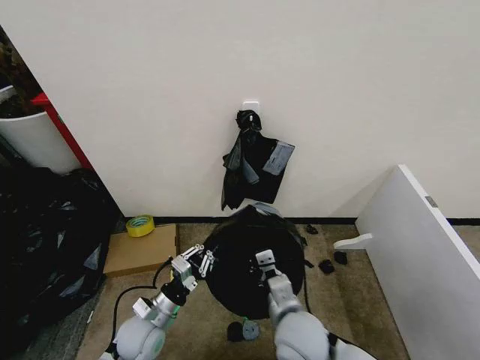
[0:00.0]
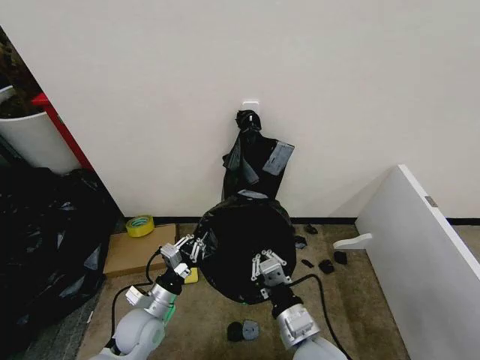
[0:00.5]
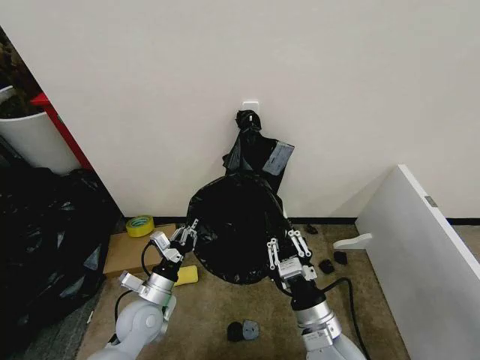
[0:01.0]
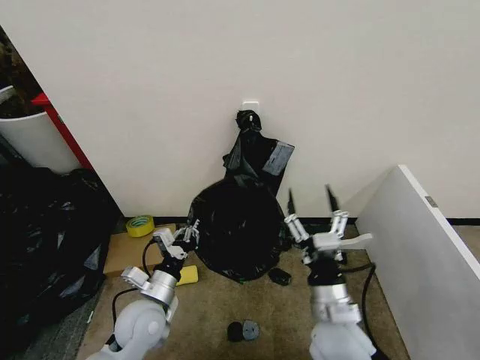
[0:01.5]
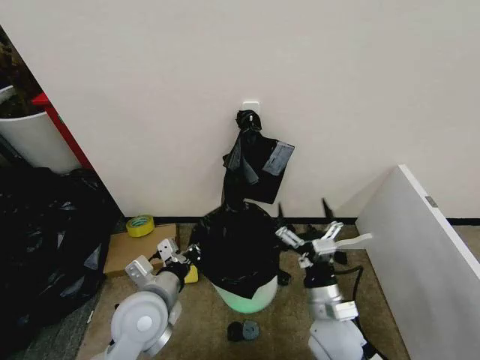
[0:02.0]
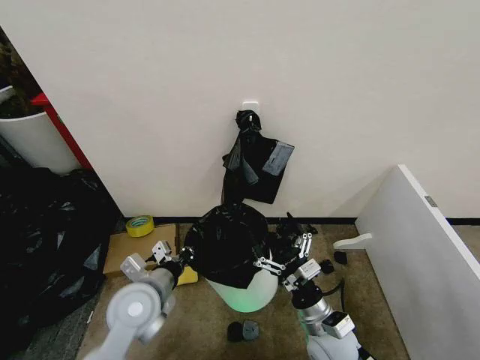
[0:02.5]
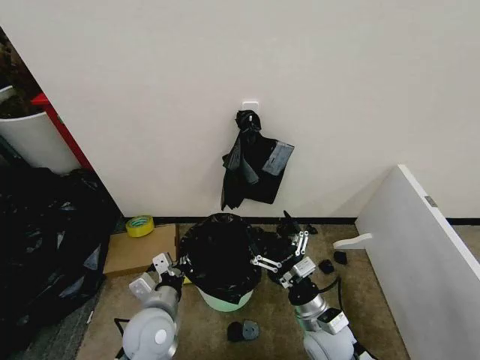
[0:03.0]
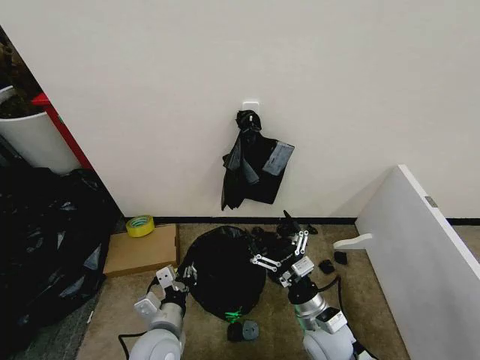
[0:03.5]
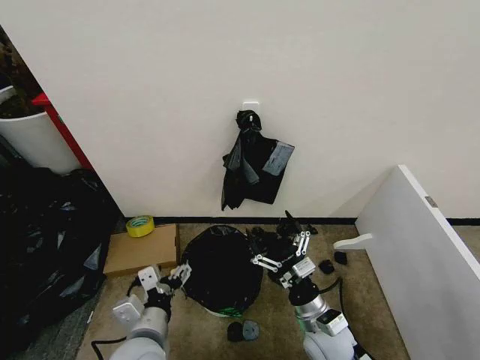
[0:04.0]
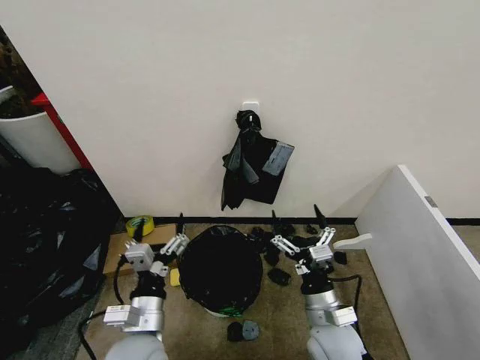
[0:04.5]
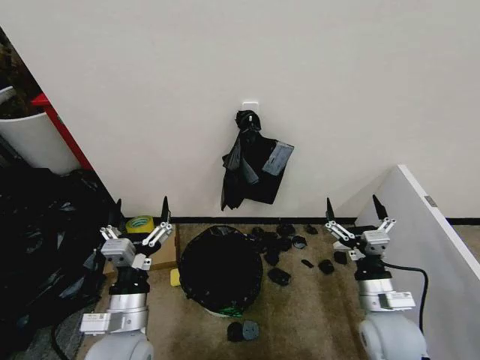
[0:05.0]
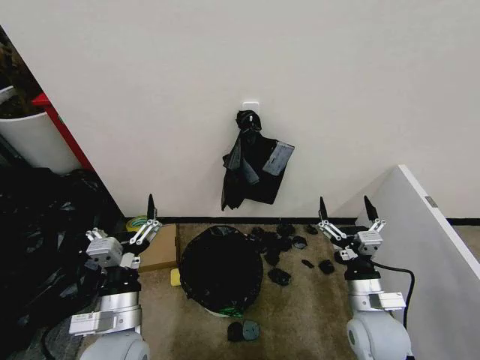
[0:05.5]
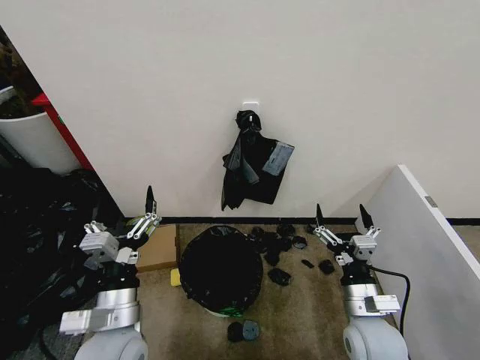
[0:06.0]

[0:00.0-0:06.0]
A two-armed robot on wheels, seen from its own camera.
Task of the whole recording: Place the garbage bag over the trash bin.
0:00.0 to 0:02.0: The left gripper heads upward, covering roughly 15 cm. The right gripper moves to the right, approximately 10 cm, and opens.
0:02.0 to 0:04.0: The left gripper is displaced backward by approximately 5 cm, and opens its fingers.
0:04.0 to 0:06.0: The right gripper goes some 10 cm to the right and upward, while the left gripper is displaced upward by some 5 cm.

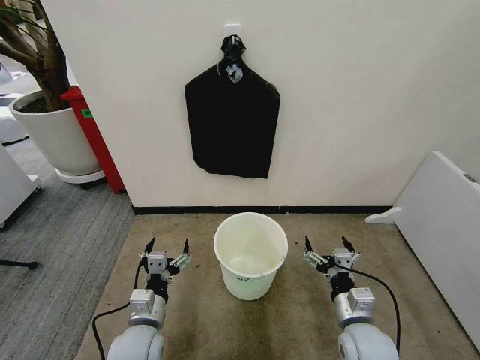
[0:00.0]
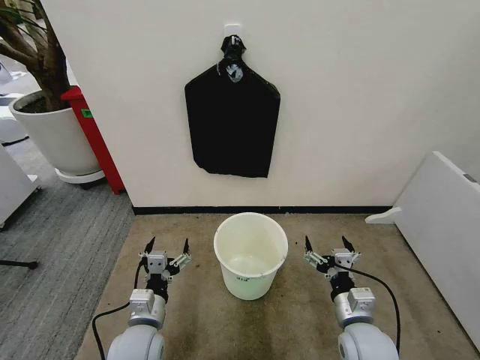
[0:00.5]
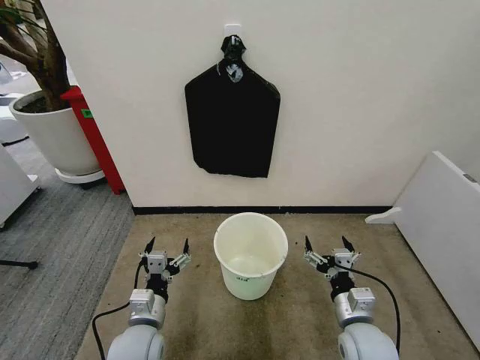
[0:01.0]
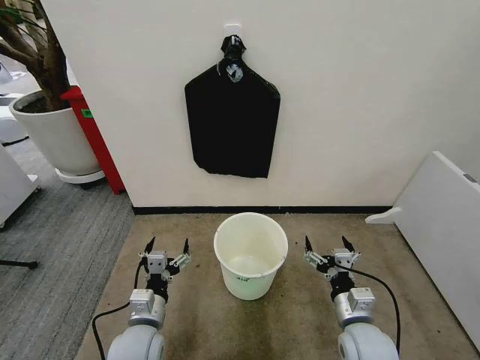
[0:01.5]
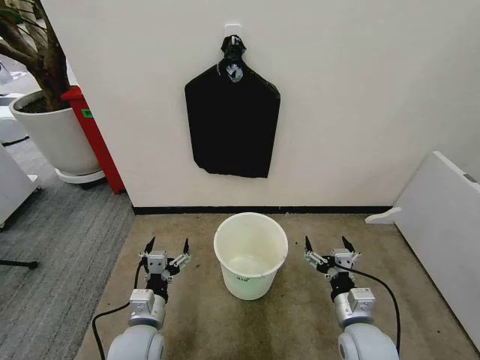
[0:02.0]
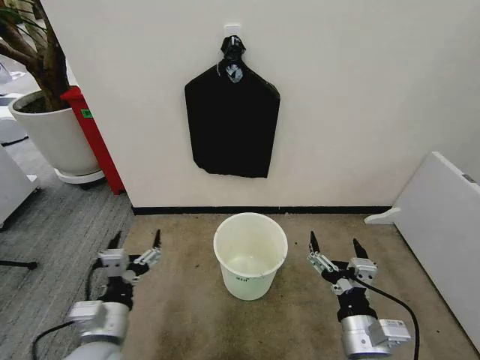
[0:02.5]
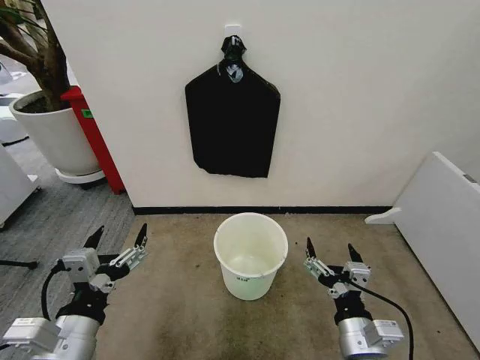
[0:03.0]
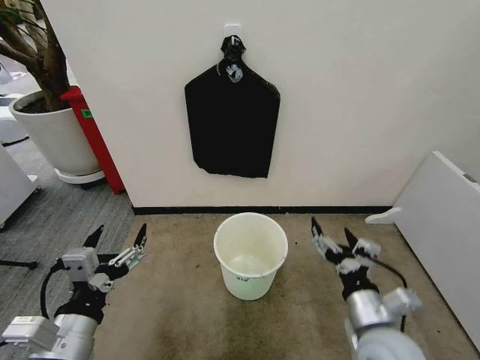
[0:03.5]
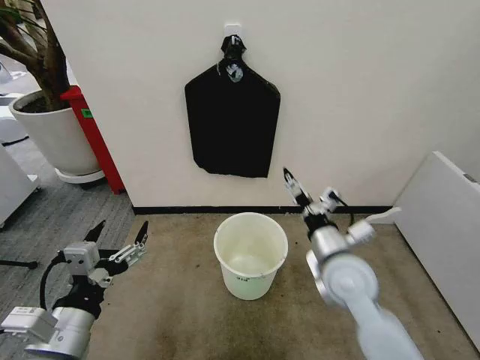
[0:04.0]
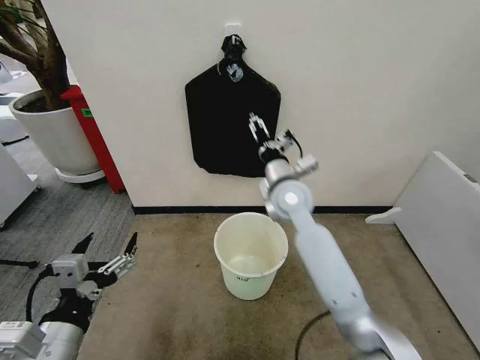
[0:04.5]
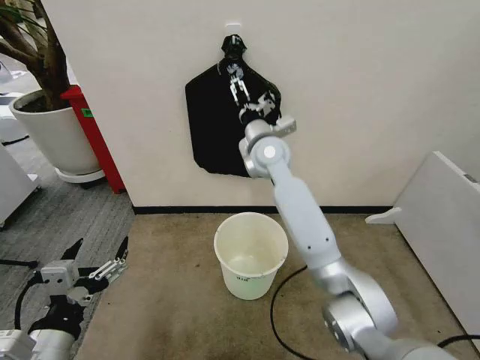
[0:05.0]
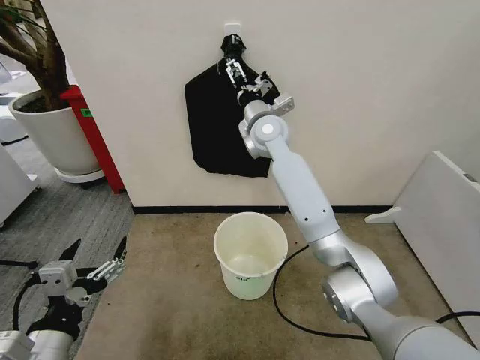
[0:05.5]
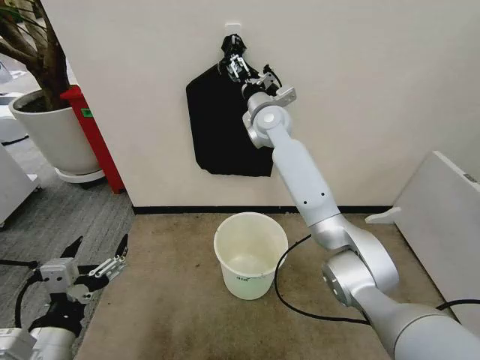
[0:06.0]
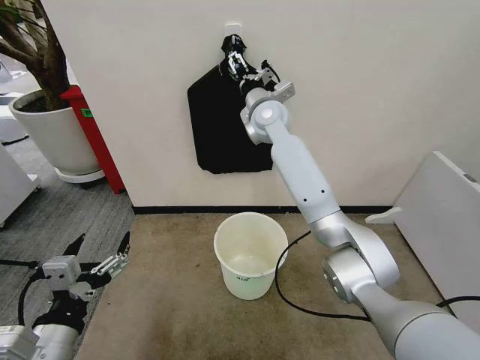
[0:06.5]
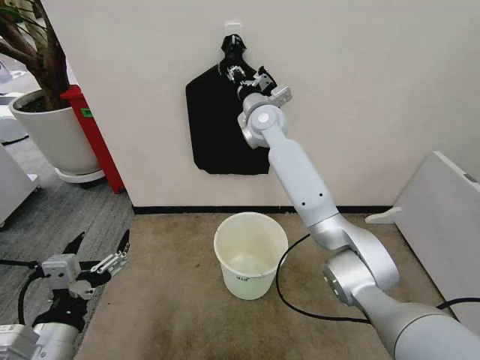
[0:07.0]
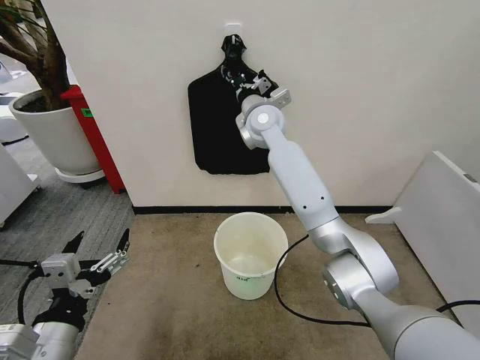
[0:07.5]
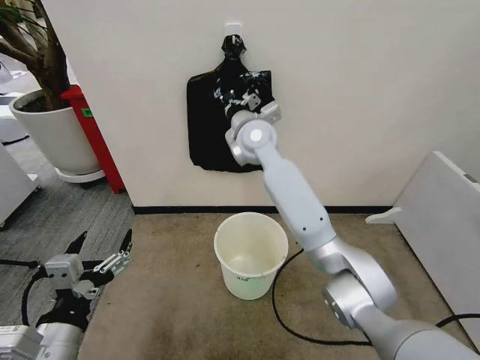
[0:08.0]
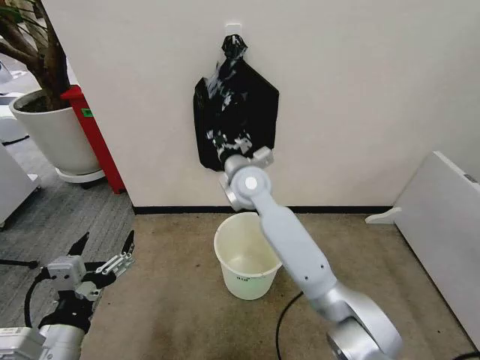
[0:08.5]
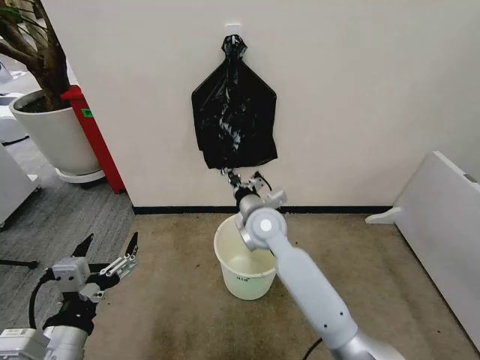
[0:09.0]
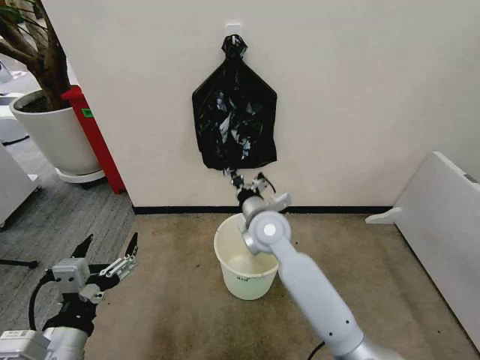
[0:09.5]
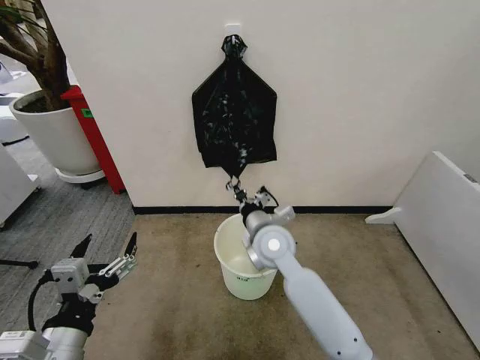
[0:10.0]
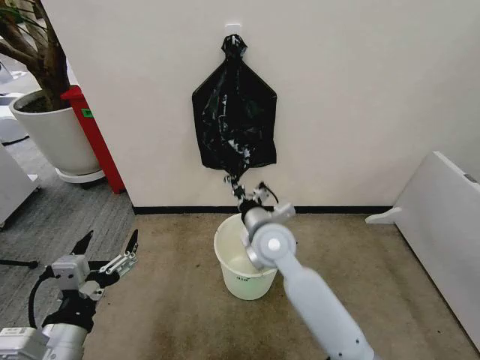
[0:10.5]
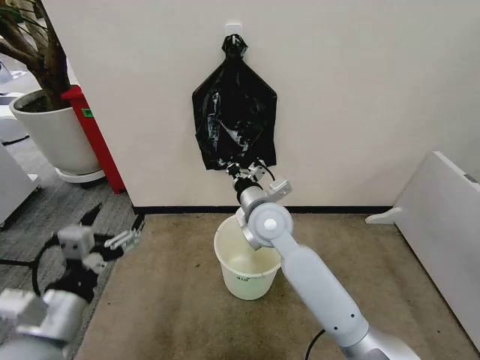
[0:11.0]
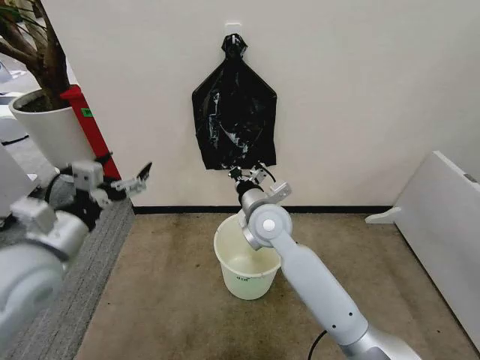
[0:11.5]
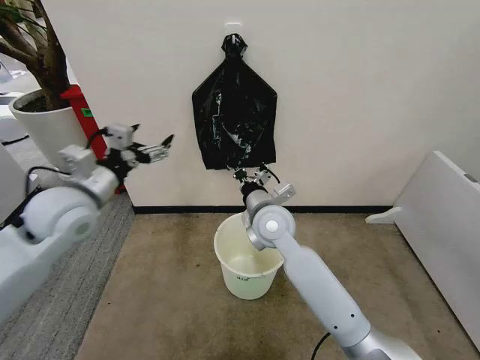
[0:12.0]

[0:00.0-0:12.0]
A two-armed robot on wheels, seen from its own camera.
Task of the whole recording: Place the garbage bag over the trash bin.
0:02.0 to 0:04.0: The right gripper goes about 15 cm upward and forward; the left gripper is displaced upward, backward and to the left by about 20 cm.
0:04.0 to 0:06.0: The right gripper shifts about 35 cm forward, upward and to the left.
0:06.0 to 0:08.0: The right gripper heads backward, covering some 5 cm, and closes.
0:08.0 to 0:10.0: The right gripper heads downward and backward, covering roughly 20 cm.
0:10.0 to 0:12.0: The left gripper shifts some 25 cm forward and upward.

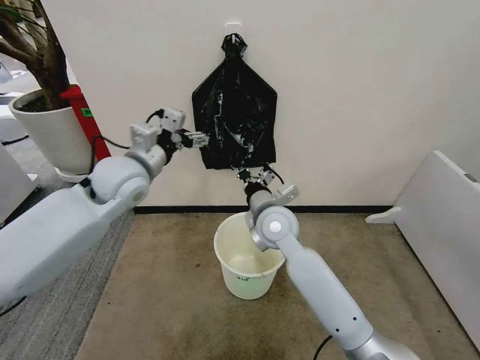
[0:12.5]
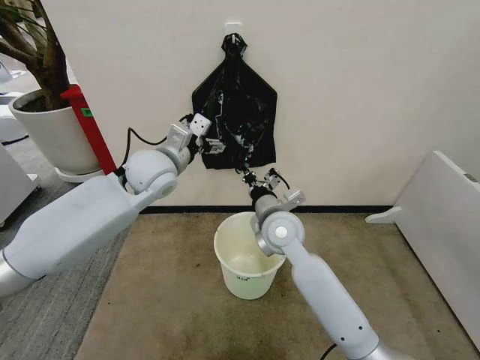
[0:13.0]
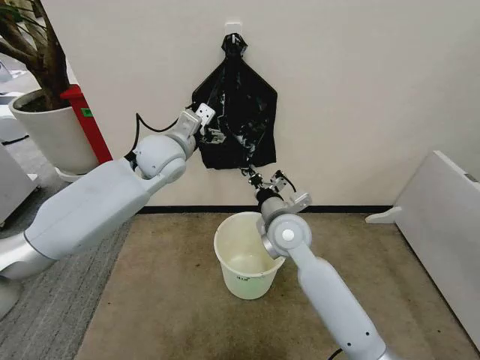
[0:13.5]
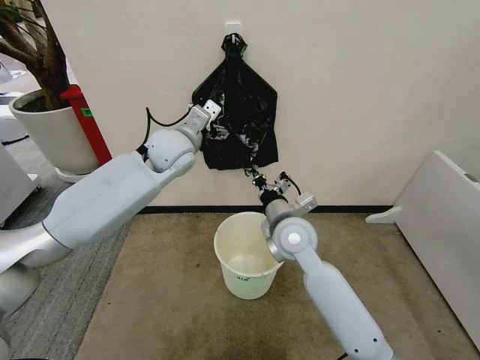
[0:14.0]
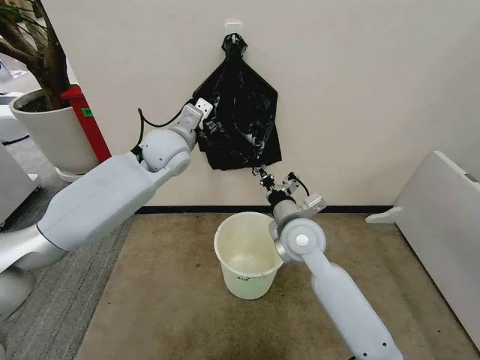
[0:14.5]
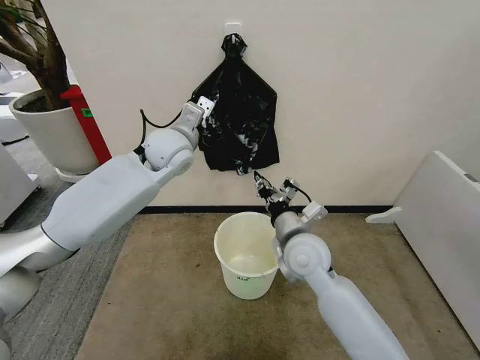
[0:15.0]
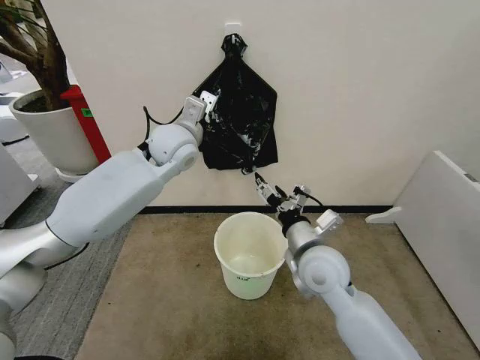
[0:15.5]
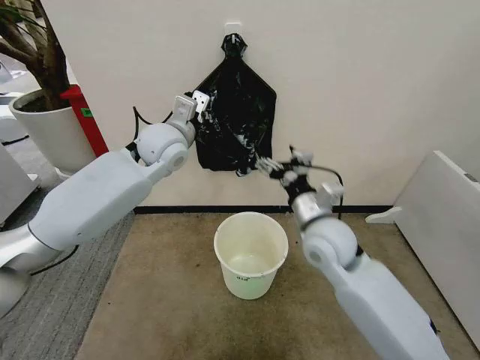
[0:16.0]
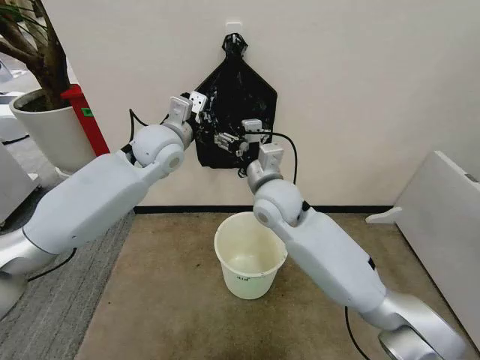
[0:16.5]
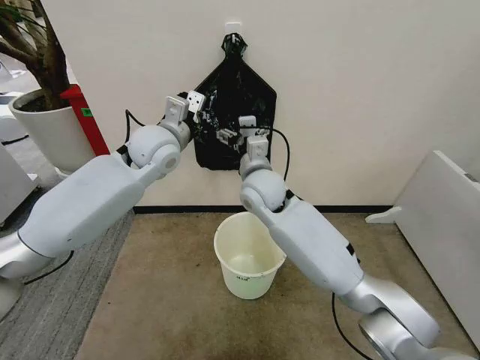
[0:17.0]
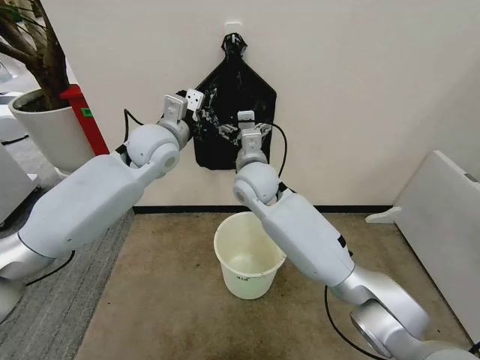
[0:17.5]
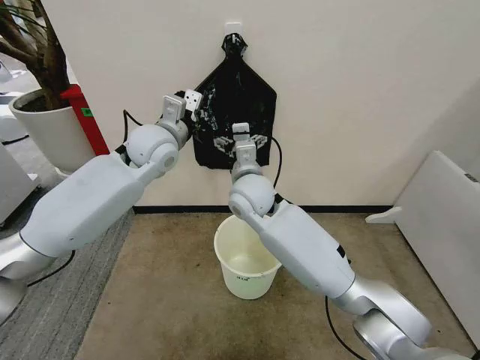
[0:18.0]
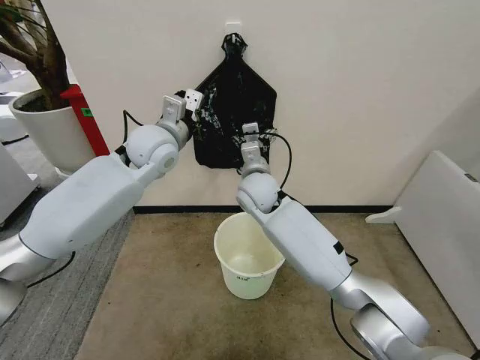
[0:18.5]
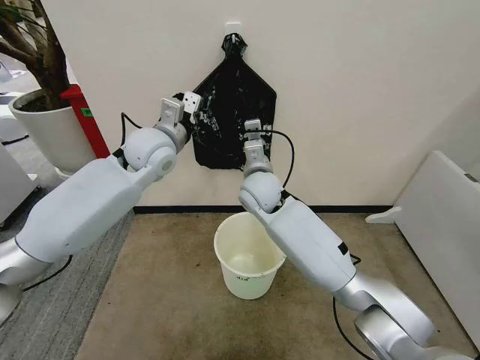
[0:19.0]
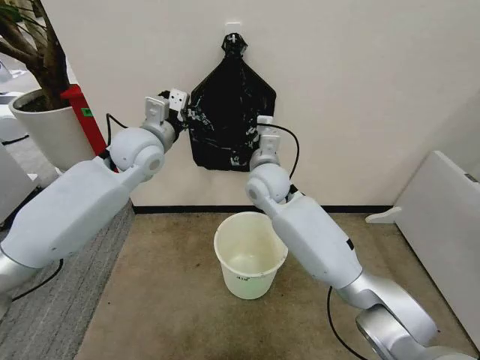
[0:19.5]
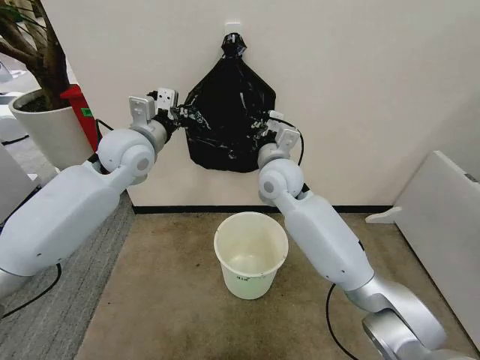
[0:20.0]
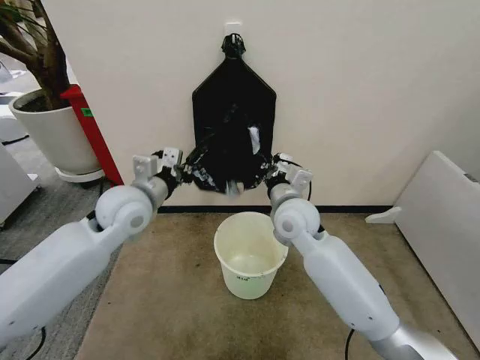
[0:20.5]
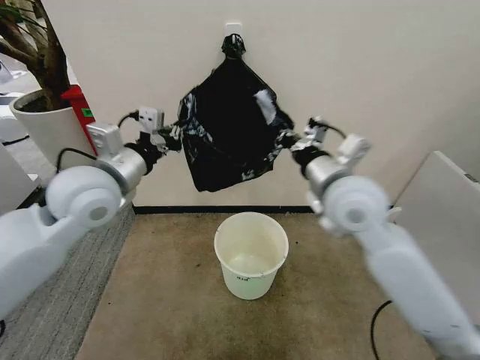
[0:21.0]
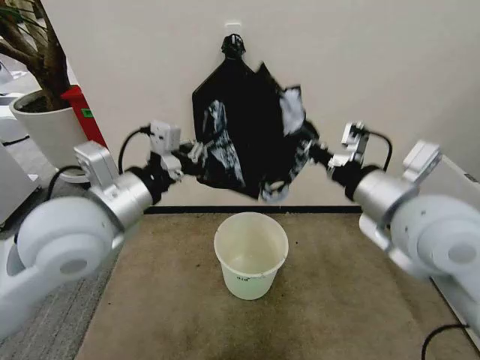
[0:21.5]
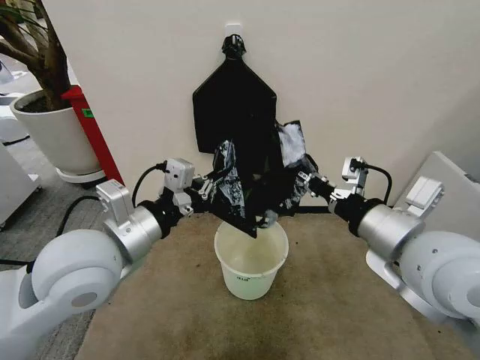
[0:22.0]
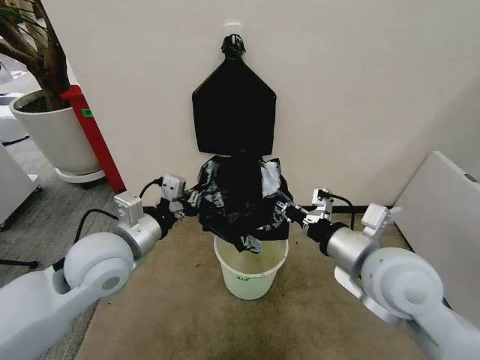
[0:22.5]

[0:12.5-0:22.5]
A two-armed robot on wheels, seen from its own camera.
Task of the whole recording: Place the garbage bag over the trash bin.
0:12.5 to 0:14.5: The left gripper travels forward and to the right by approximately 10 cm, and closes up. Meanwhile the right gripper moves to the right, some 5 cm.
0:14.5 to 0:16.5: The right gripper travels upward and to the left by about 10 cm, and opens up. Meanwhile the left gripper closes its fingers.
0:16.5 to 0:18.5: The right gripper heads forward, covering roughly 5 cm.
0:18.5 to 0:20.5: The right gripper shifts some 10 cm to the right and backward, and closes. Meanwhile the left gripper travels backward and downward by roughly 10 cm.
0:20.5 to 0:22.5: The left gripper goes roughly 10 cm backward; the right gripper is displaced backward and to the right by approximately 20 cm.
